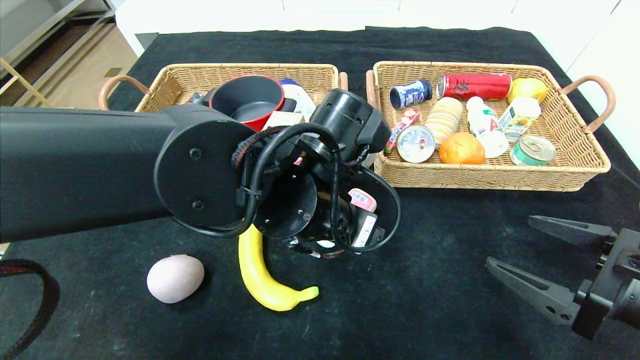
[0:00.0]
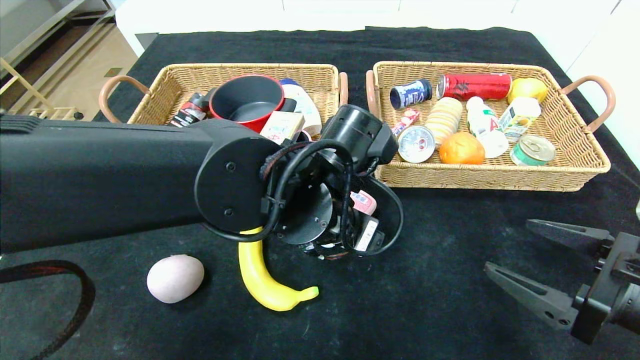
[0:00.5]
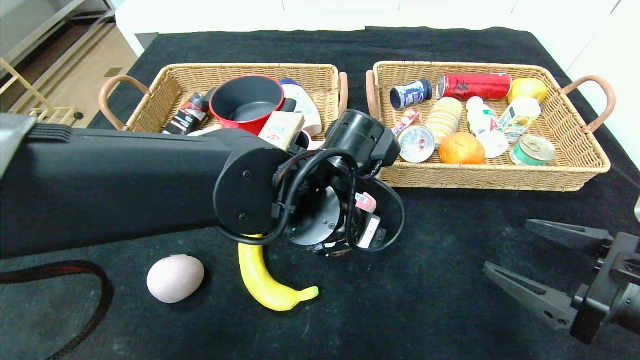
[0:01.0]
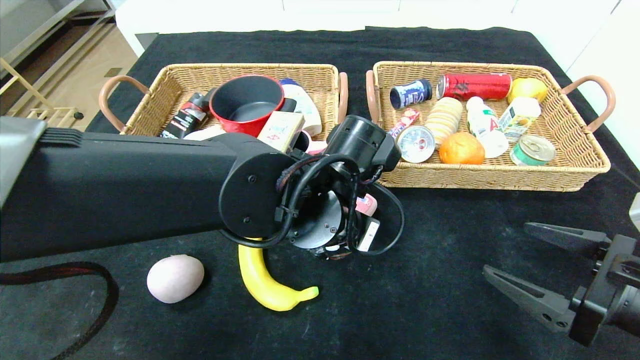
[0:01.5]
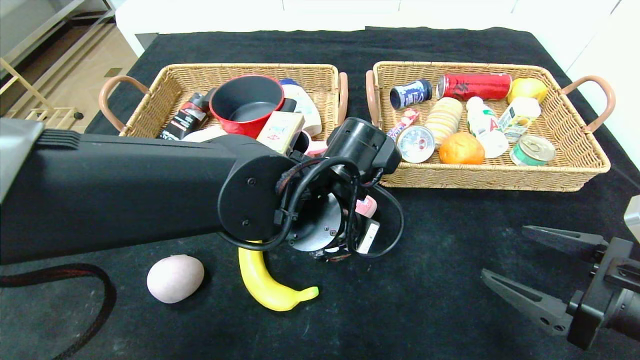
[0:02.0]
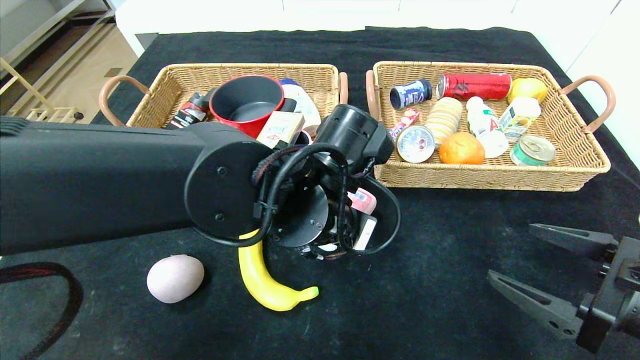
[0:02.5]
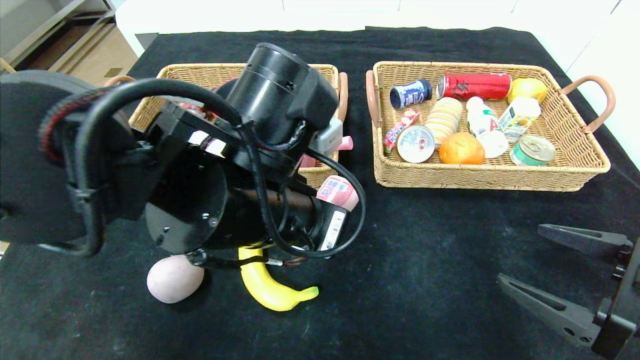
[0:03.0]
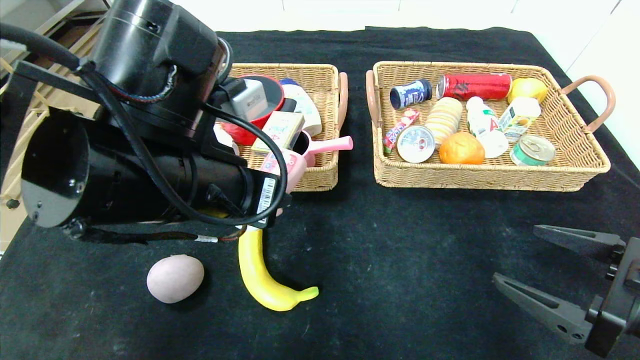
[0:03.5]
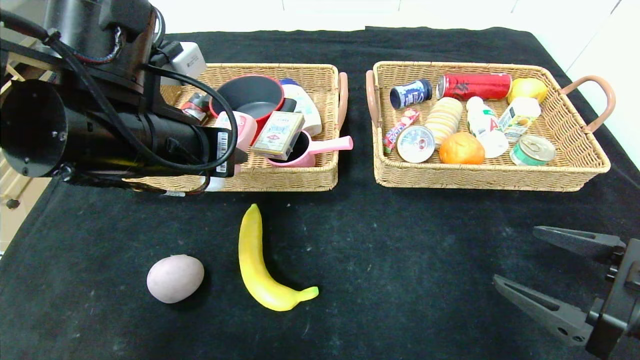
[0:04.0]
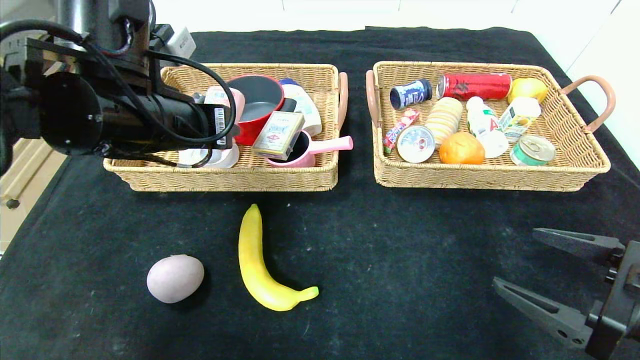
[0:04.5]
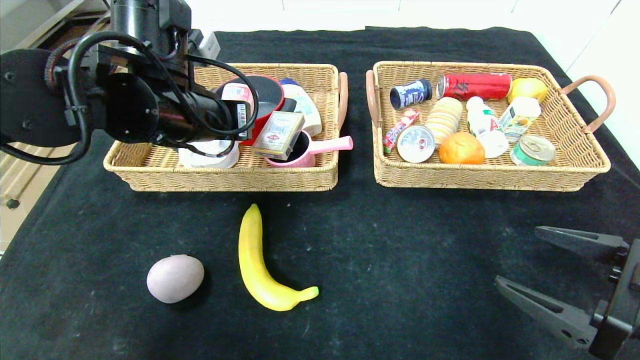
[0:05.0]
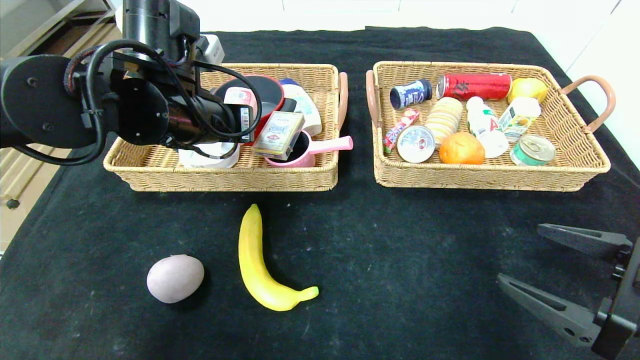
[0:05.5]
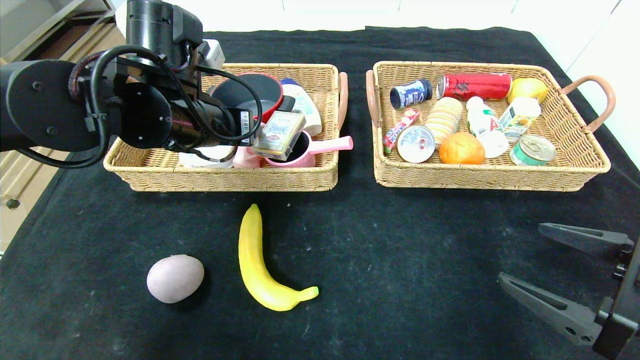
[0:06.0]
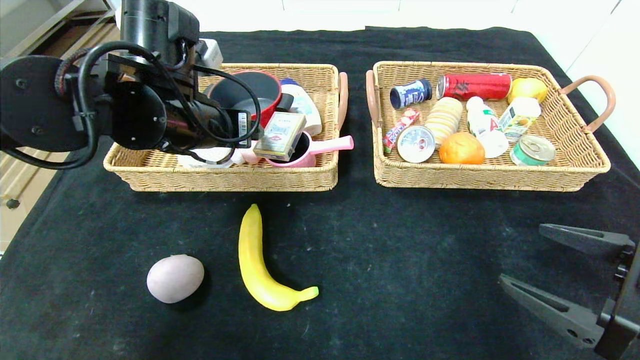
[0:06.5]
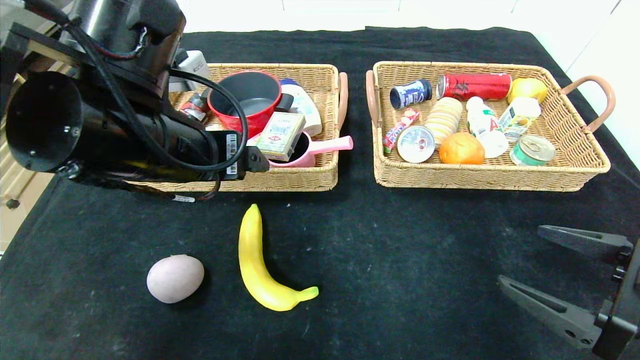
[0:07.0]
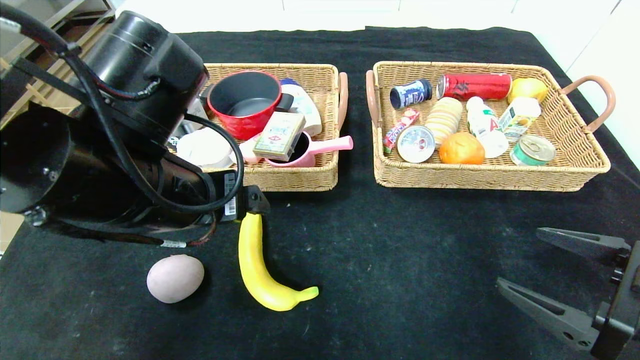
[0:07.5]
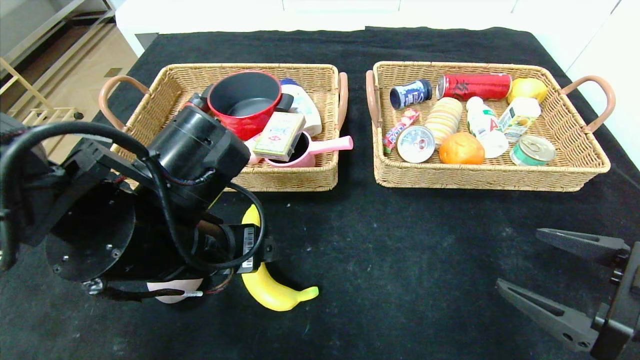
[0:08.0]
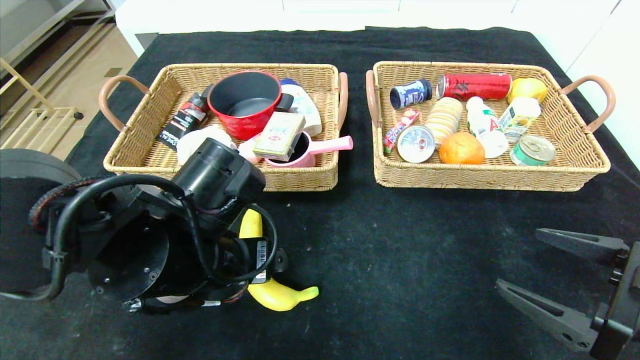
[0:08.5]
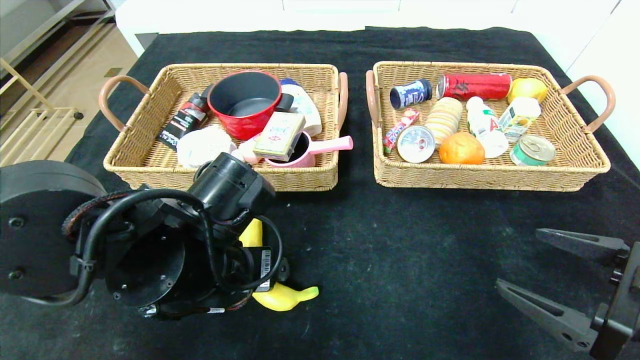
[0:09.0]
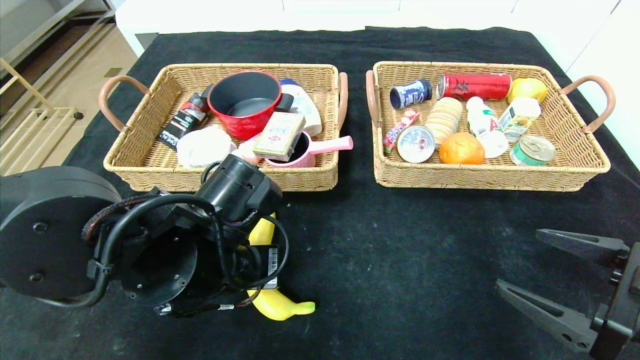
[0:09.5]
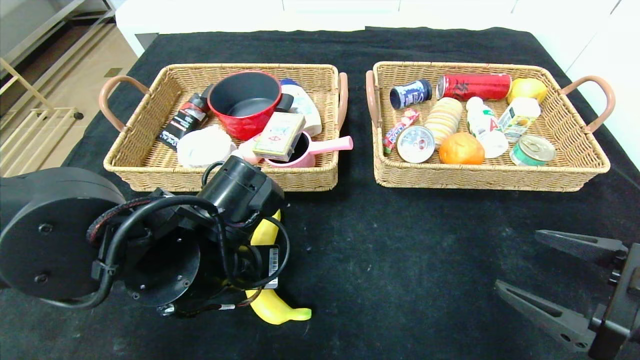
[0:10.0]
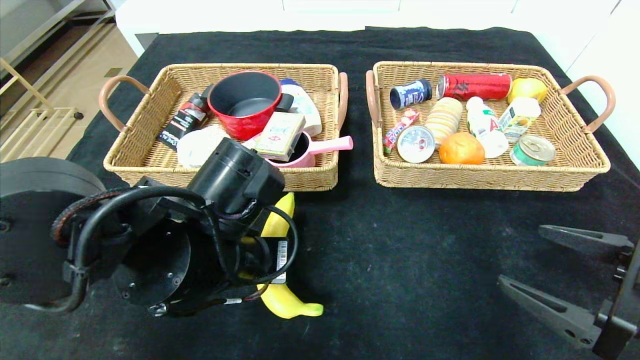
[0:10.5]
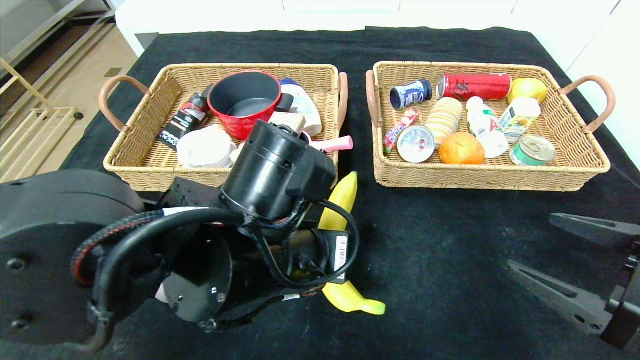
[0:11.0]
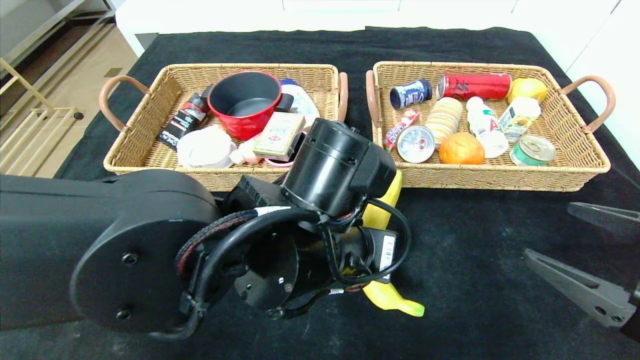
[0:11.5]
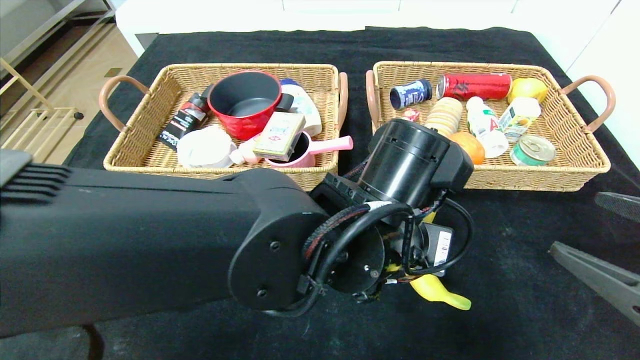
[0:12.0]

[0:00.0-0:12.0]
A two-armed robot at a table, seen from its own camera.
Step, 0:00.0 to 0:06.0: Grasp the detergent and put it in the left basket.
0:00.0 to 0:02.0: The left gripper closes.
0:02.0 to 0:04.0: The left gripper shifts approximately 20 cm to the left and upward.
0:04.0 to 0:06.0: The left gripper is displaced forward by about 10 cm.
0:06.0 to 0:08.0: The left gripper is displaced backward and downward by about 15 cm.
0:08.0 to 0:10.0: The left gripper closes.
0:10.0 to 0:12.0: The left gripper goes about 15 cm to the right.

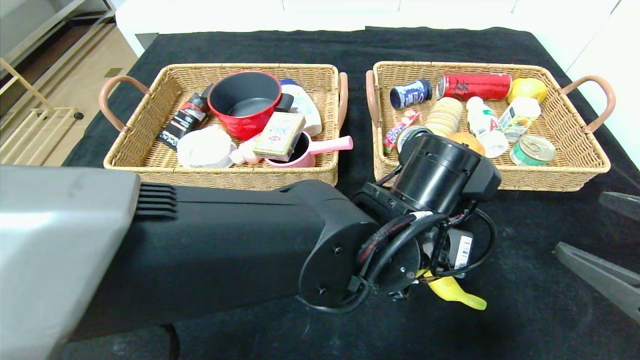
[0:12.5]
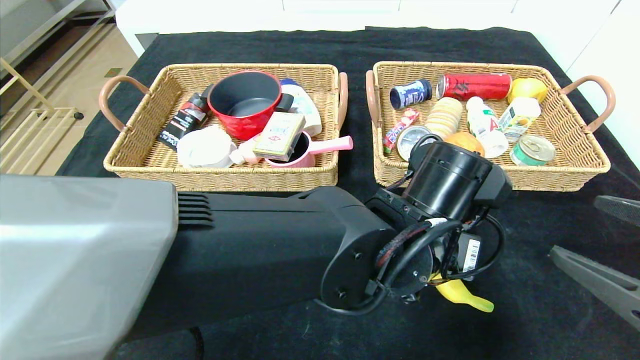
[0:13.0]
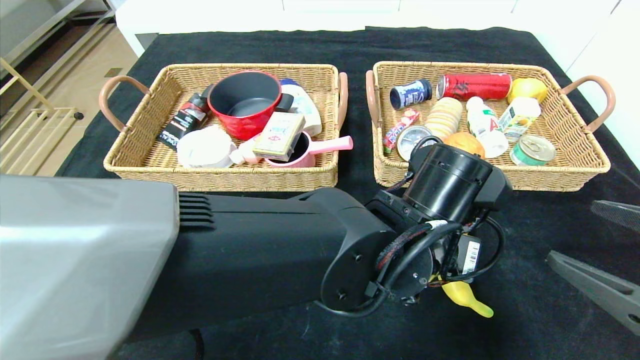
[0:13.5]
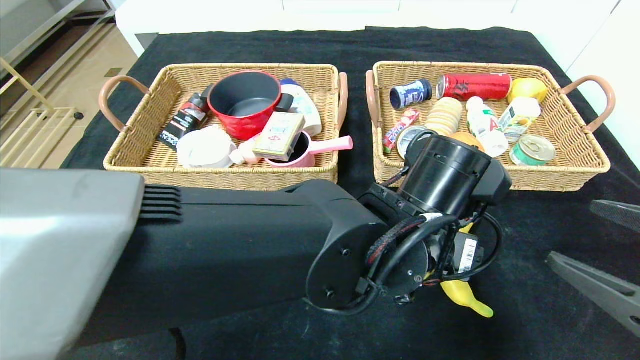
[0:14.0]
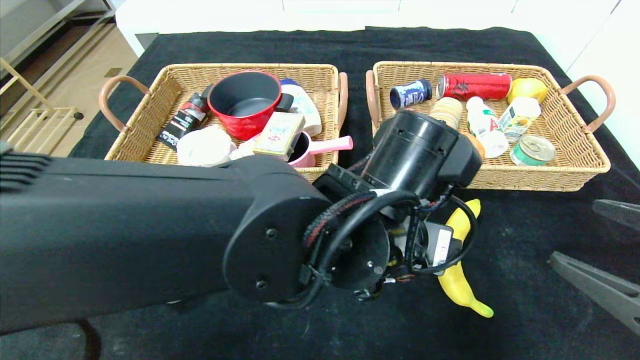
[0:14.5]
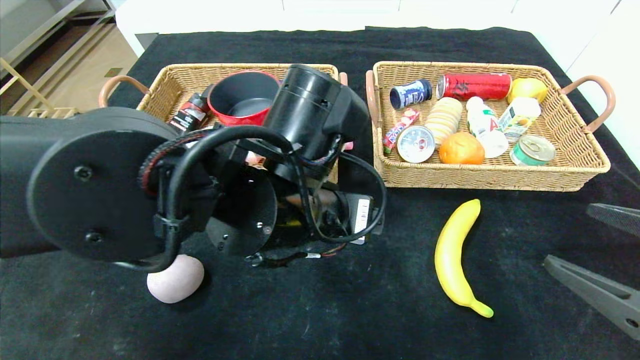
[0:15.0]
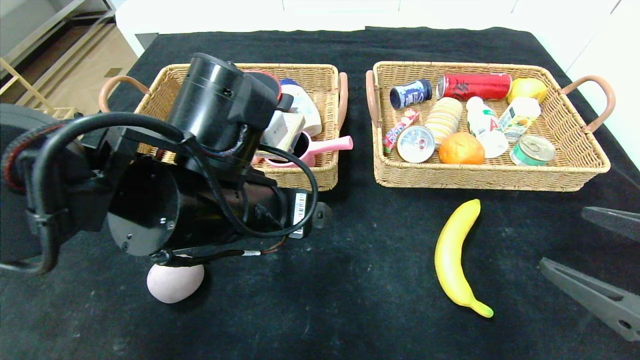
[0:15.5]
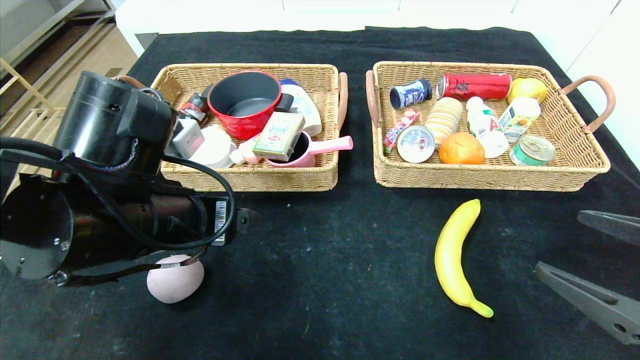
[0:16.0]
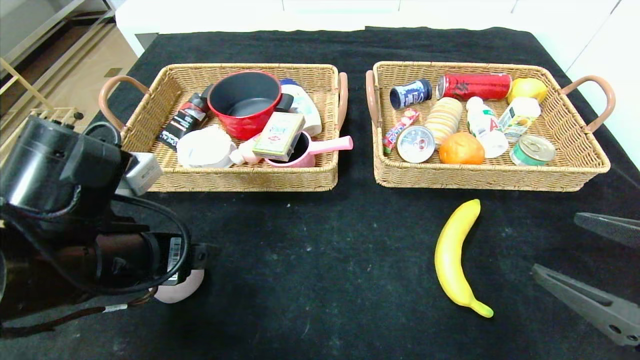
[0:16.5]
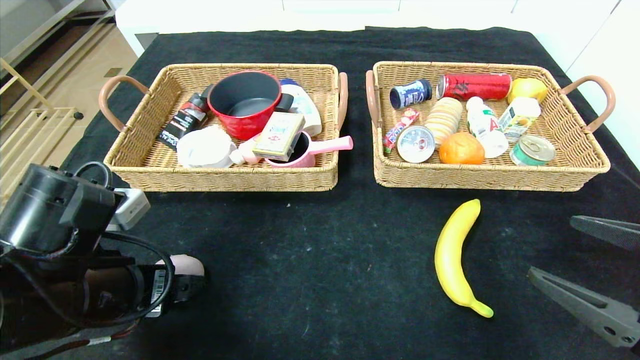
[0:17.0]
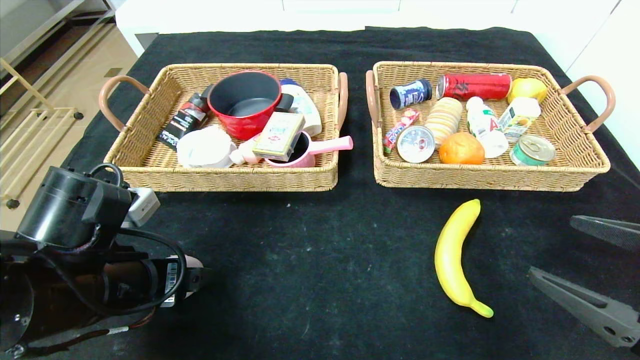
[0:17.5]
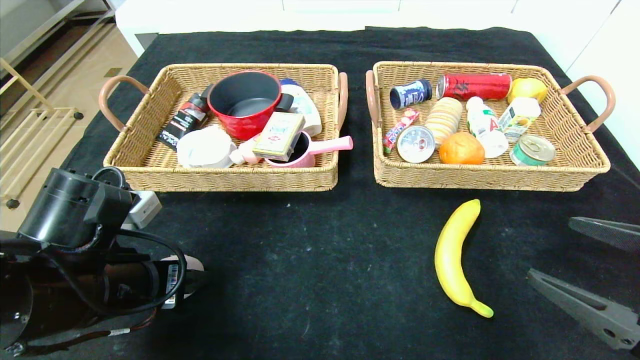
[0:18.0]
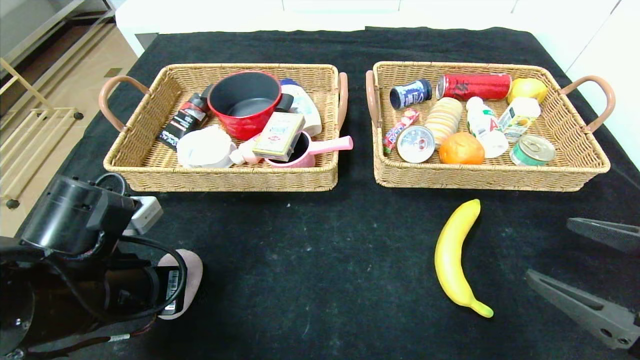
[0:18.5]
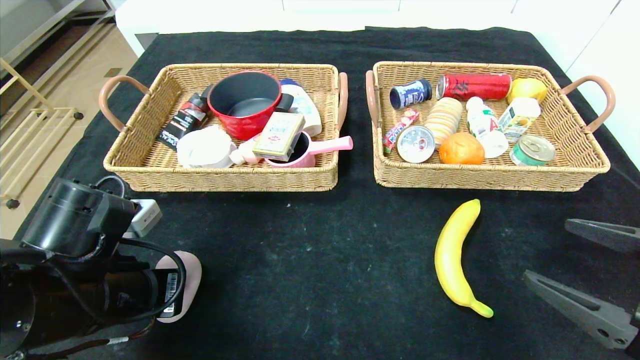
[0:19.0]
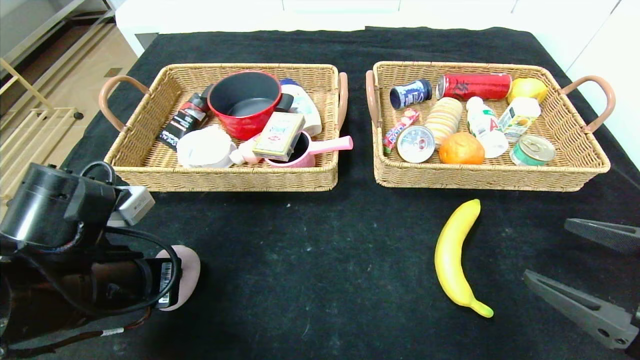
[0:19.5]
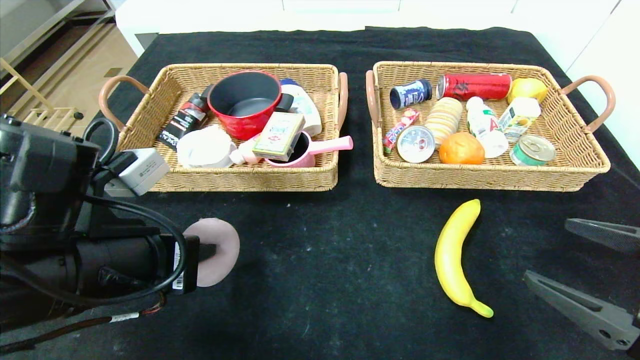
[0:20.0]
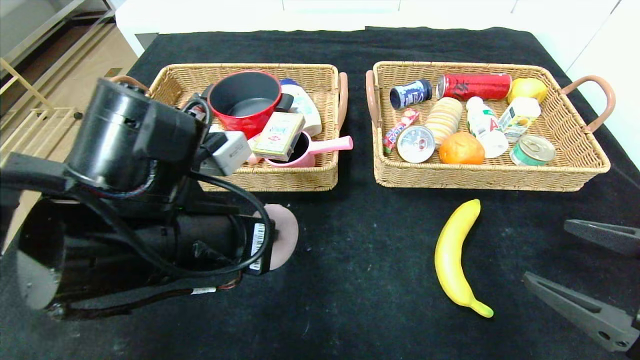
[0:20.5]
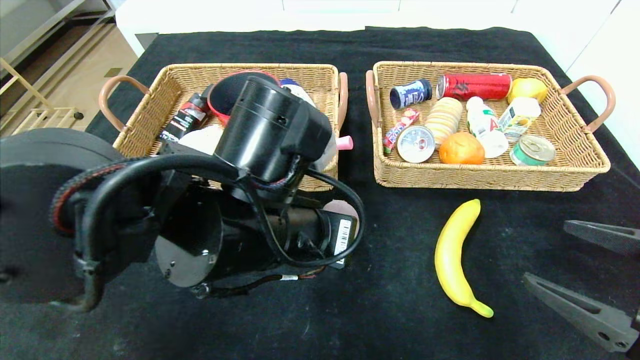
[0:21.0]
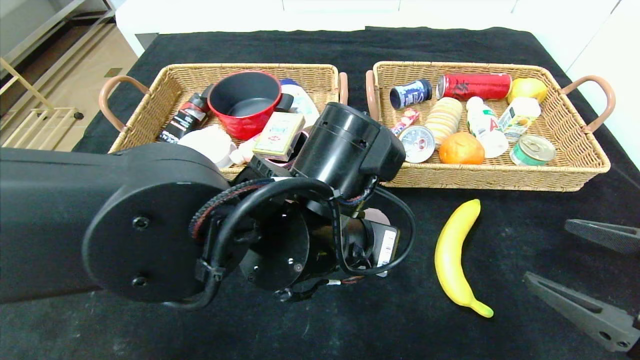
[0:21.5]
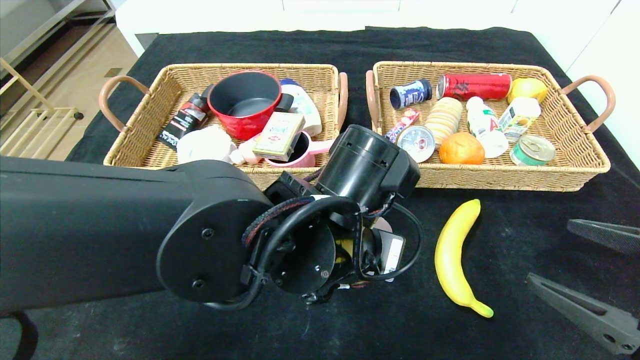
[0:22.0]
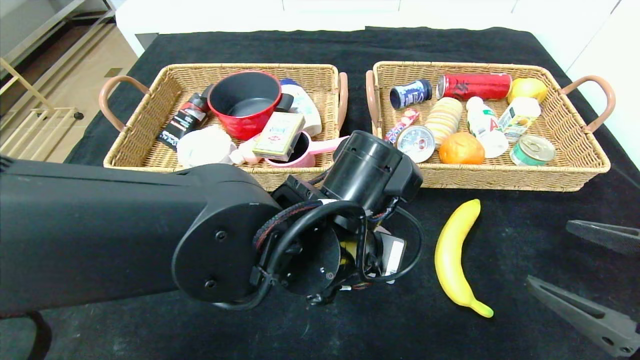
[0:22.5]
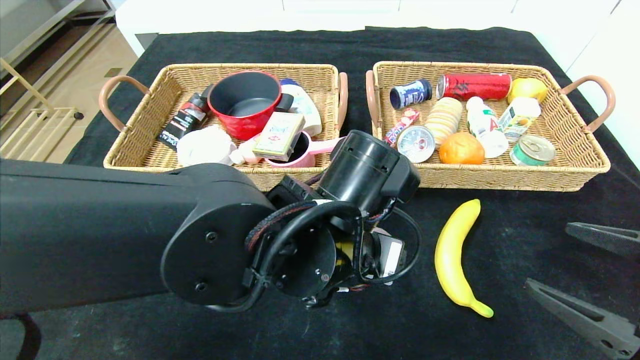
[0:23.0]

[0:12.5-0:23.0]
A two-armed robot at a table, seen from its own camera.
Step, 0:14.0 to 0:22.5: Place the peach in the center of the table.
0:12.5 to 0:14.5: The left gripper opens up.
0:14.5 to 0:16.5: The left gripper heads to the left, covering some 25 cm.
0:16.5 to 0:19.0: The left gripper shifts by approximately 5 cm, and closes its fingers.
0:19.0 to 0:21.0: The left gripper travels to the right by approximately 15 cm.
0:21.0 to 0:23.0: The left gripper goes some 5 cm to the right, and opens up.
